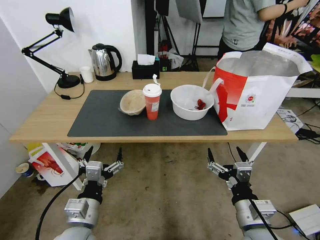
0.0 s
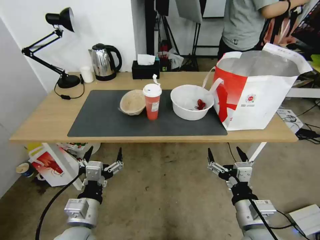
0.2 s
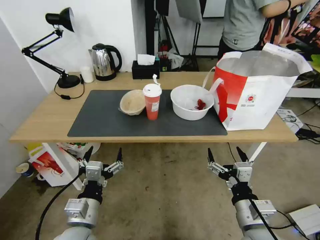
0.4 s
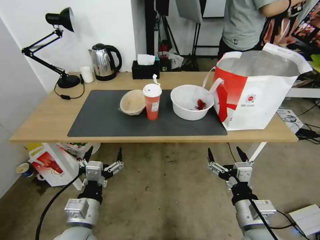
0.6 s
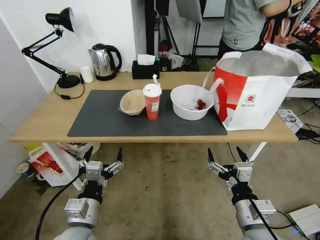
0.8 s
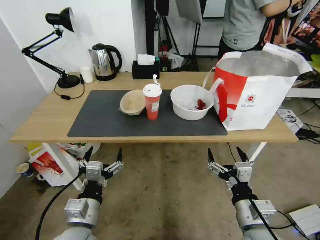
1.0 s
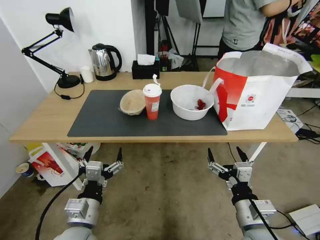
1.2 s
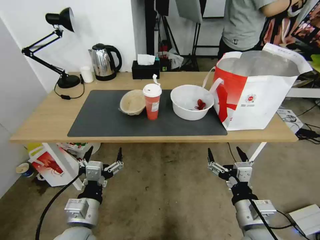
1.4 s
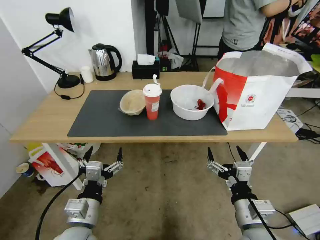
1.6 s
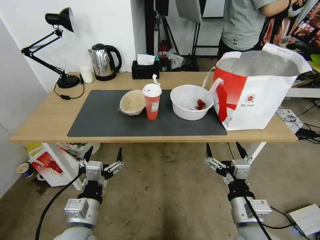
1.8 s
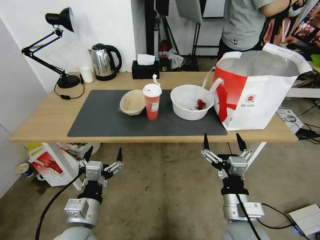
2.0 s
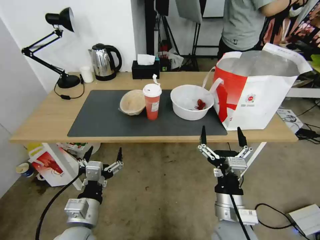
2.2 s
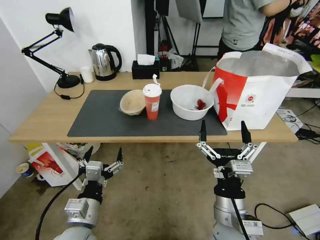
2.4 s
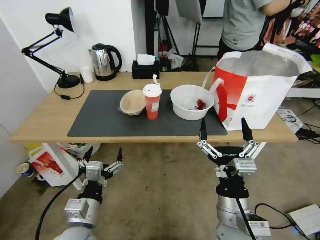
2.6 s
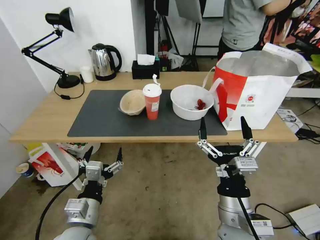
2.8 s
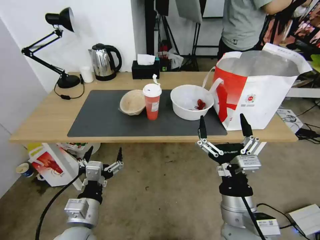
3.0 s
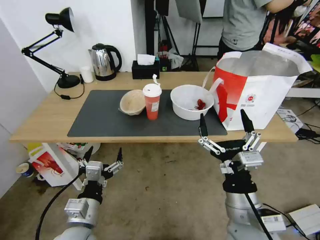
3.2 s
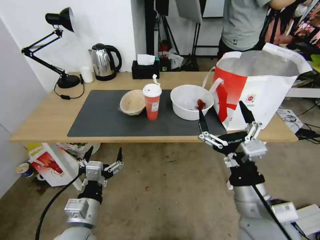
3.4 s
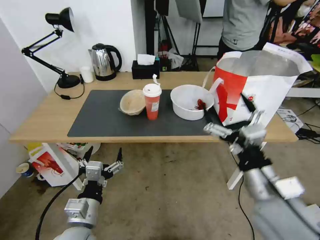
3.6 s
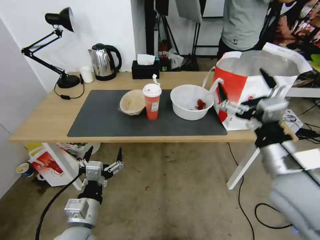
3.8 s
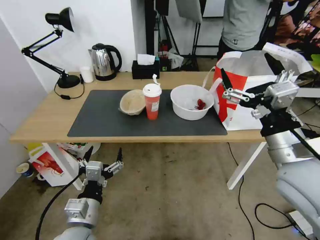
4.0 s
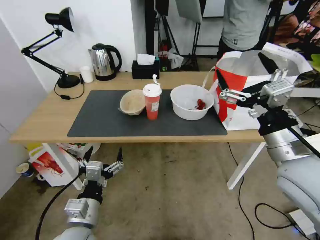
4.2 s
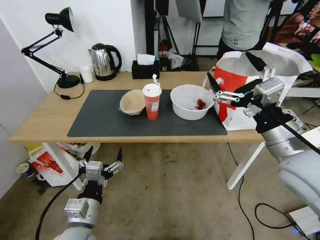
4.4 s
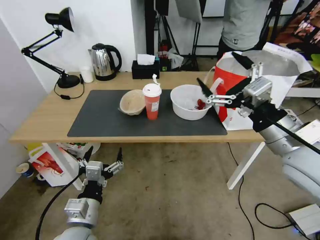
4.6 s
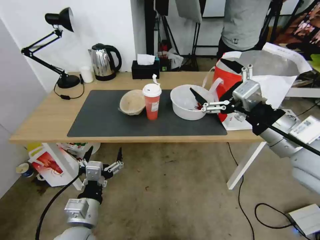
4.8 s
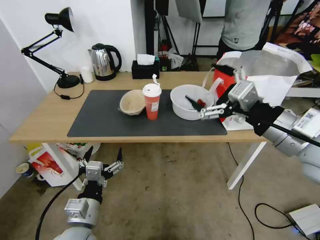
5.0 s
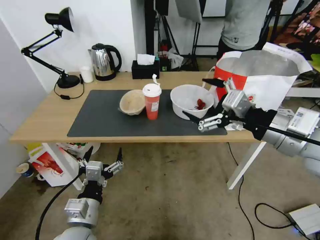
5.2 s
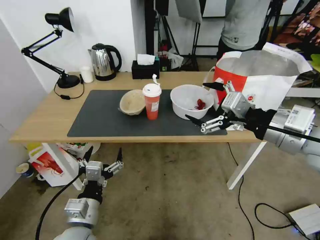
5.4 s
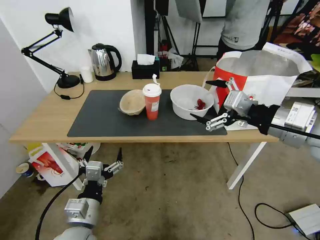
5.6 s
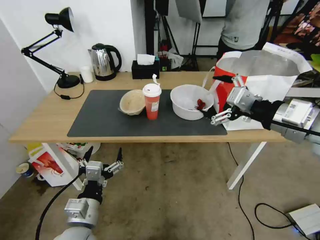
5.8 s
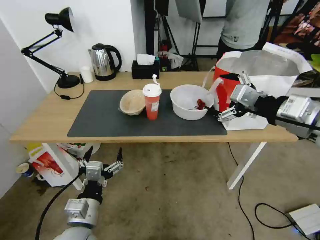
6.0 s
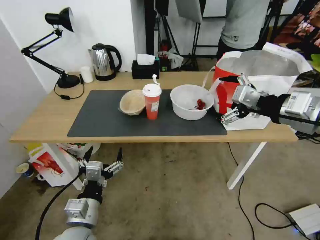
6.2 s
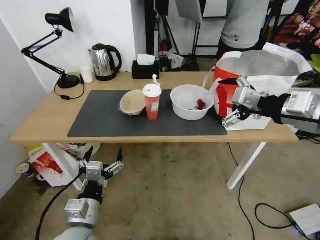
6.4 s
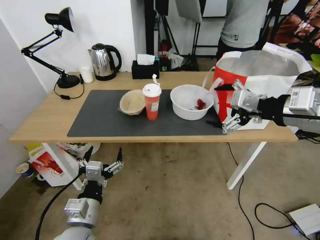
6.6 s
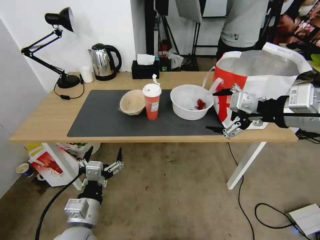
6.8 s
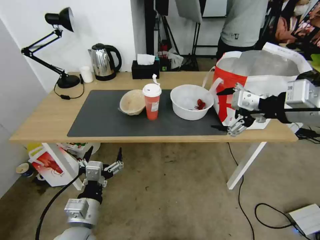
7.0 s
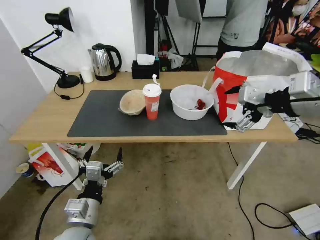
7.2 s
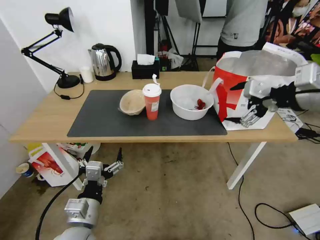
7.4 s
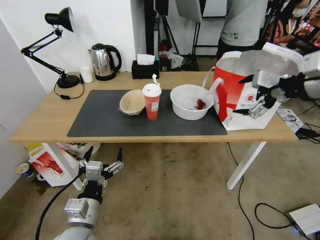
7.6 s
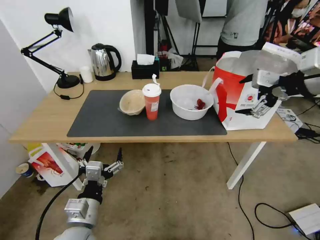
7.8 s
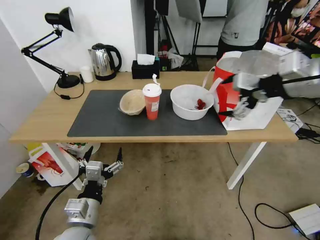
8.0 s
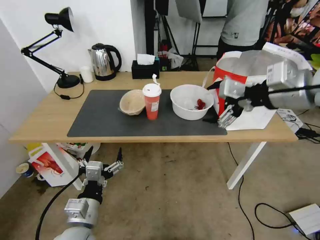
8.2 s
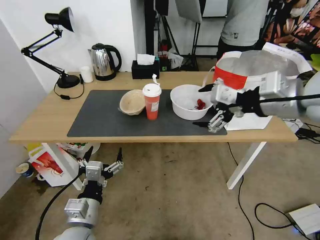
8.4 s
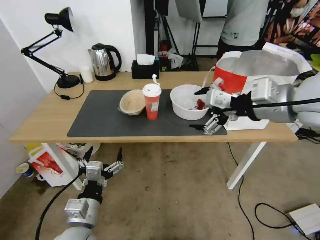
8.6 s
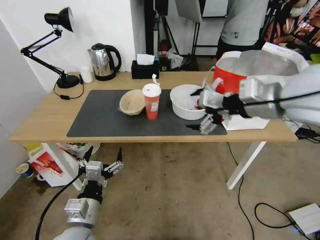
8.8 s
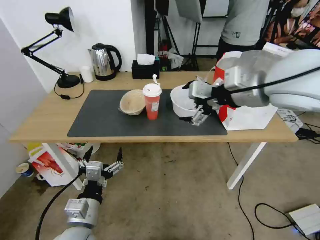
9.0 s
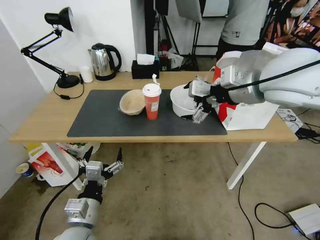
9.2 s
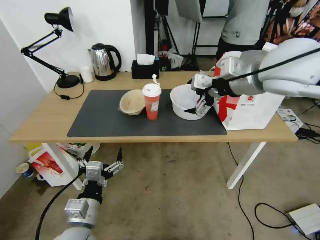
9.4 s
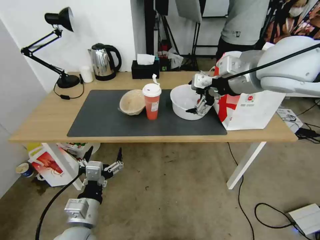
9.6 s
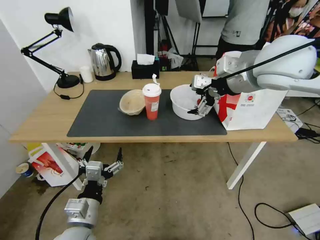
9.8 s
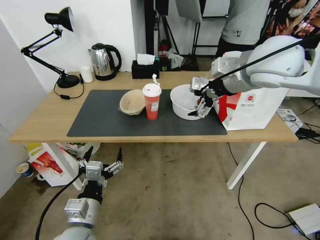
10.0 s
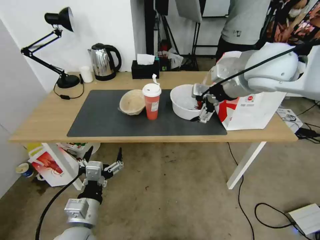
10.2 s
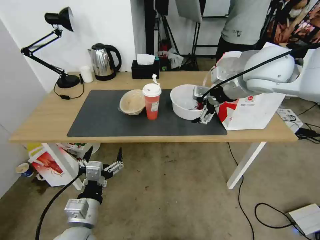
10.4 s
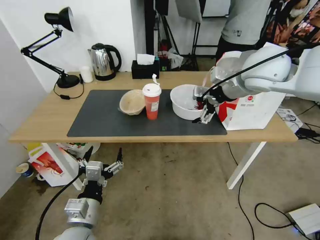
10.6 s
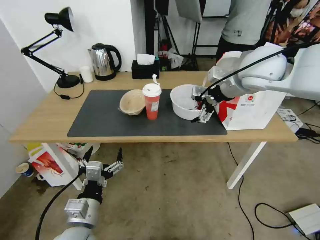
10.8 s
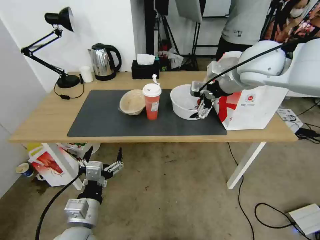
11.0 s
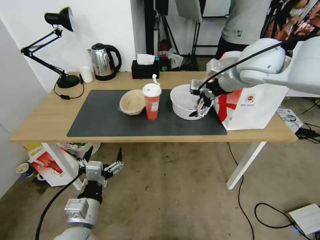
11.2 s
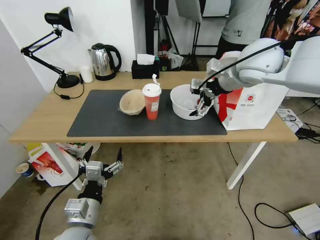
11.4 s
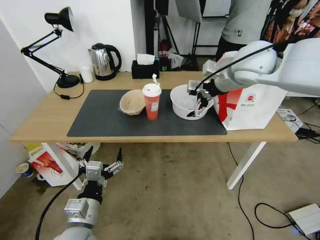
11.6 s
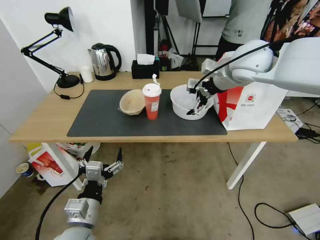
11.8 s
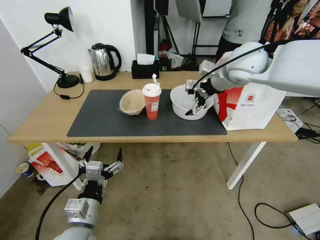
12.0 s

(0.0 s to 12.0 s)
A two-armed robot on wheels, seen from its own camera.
Task of the whole recording: Pick up the trash from the table and place it into the takeout bag.
1.6 s - 3.0 s: The right gripper shifts about 5 cm to the left.
3.0 s - 4.4 s: The right gripper heads upward, to the right and forward, covering about 20 cm.
4.4 s - 6.0 s: The right gripper moves upward, approximately 10 cm.
6.0 s - 7.6 s: The right gripper is displaced upward and forward by about 10 cm.
7.6 s - 9.0 s: The right gripper moves to the left, approximately 15 cm.
9.0 s - 10.4 s: The right gripper moves forward, about 10 cm.
10.4 s - 12.0 s: The right gripper goes some 5 cm forward.

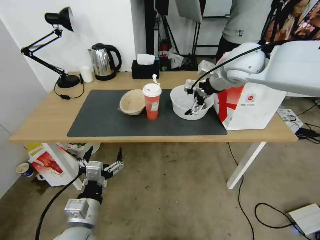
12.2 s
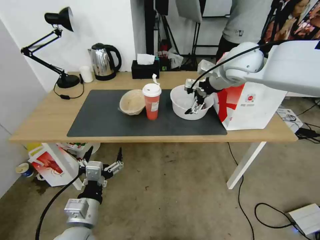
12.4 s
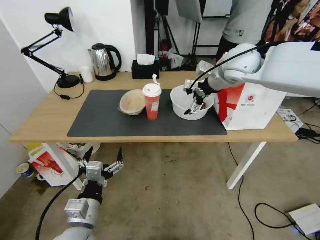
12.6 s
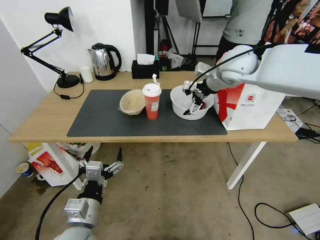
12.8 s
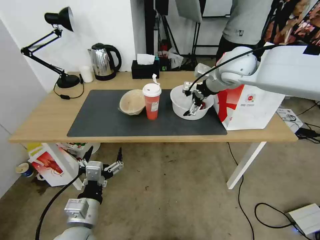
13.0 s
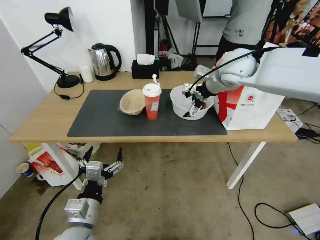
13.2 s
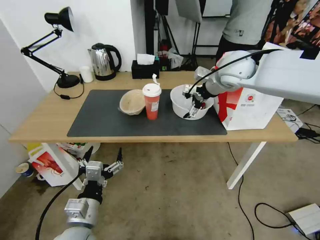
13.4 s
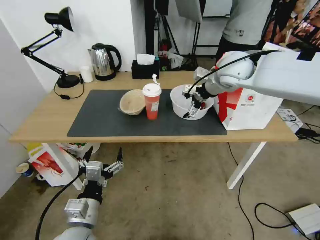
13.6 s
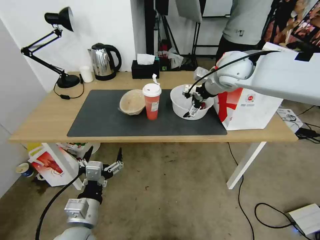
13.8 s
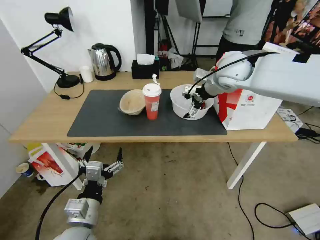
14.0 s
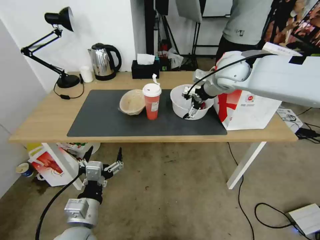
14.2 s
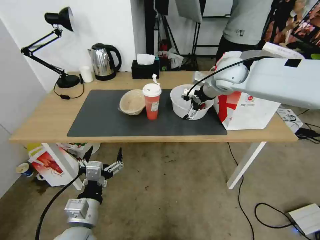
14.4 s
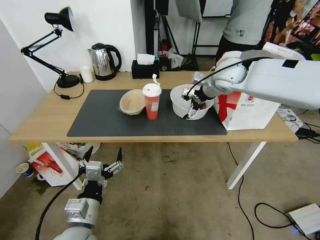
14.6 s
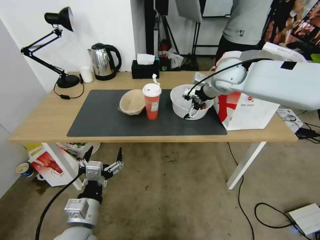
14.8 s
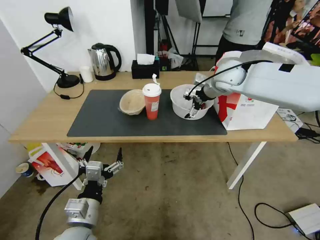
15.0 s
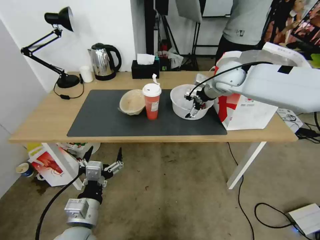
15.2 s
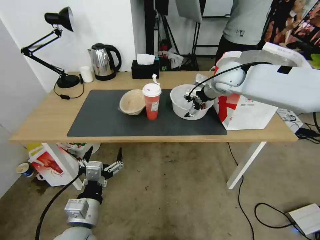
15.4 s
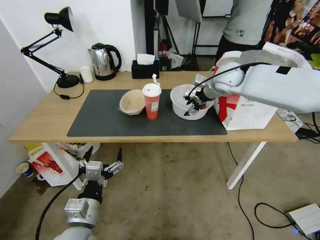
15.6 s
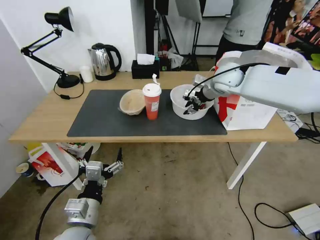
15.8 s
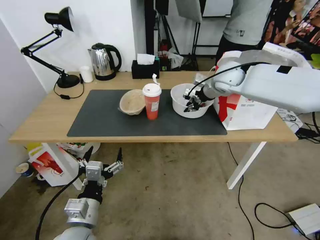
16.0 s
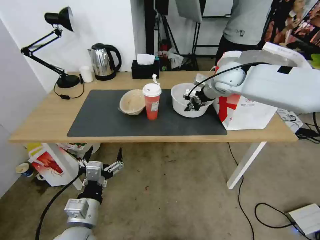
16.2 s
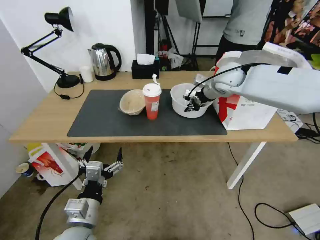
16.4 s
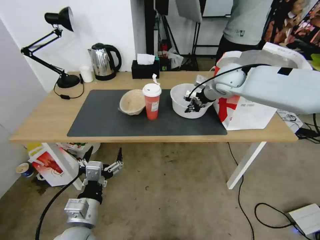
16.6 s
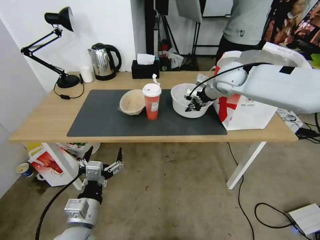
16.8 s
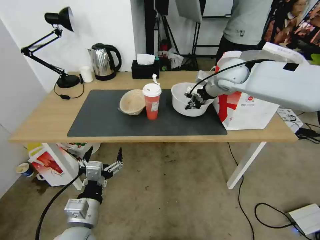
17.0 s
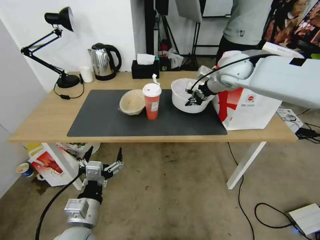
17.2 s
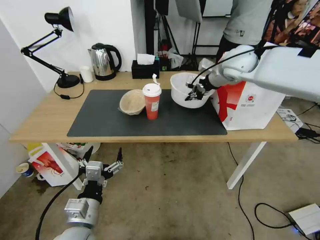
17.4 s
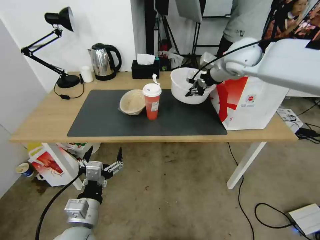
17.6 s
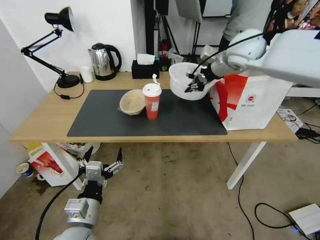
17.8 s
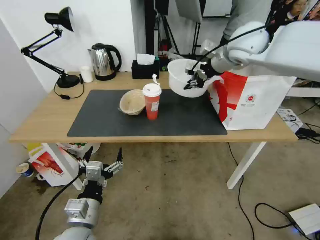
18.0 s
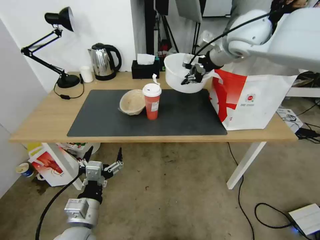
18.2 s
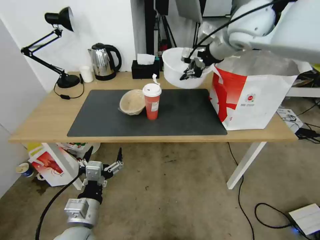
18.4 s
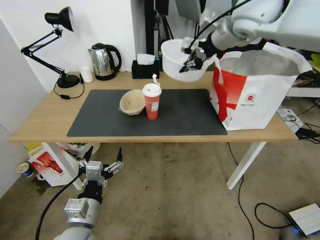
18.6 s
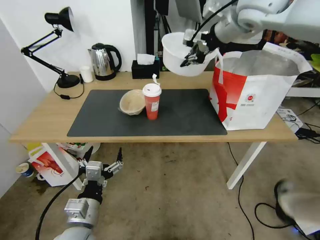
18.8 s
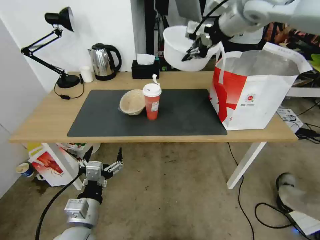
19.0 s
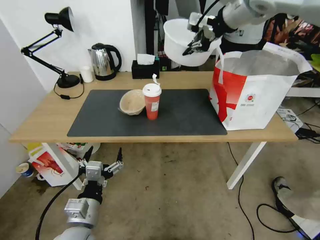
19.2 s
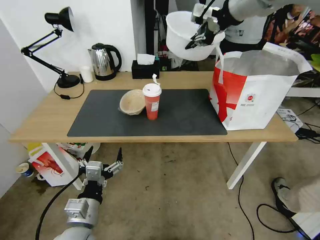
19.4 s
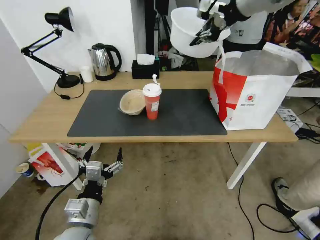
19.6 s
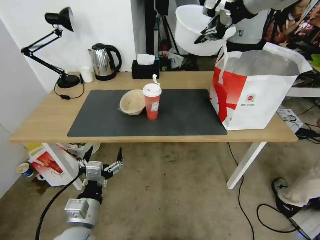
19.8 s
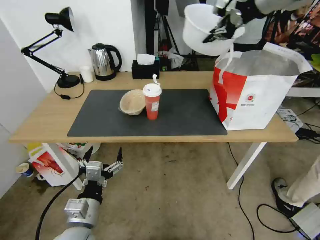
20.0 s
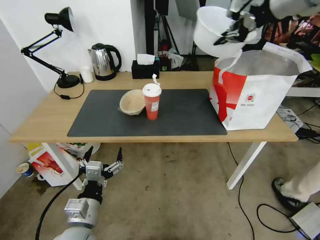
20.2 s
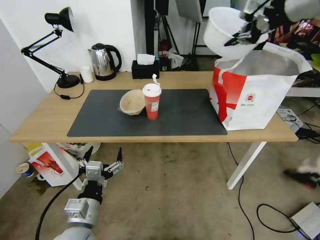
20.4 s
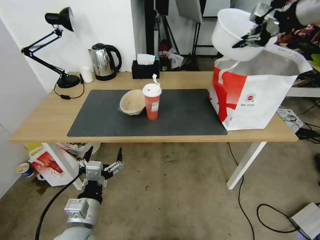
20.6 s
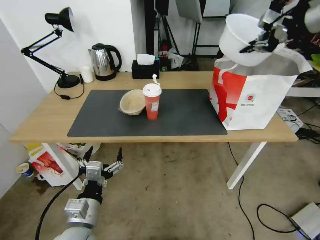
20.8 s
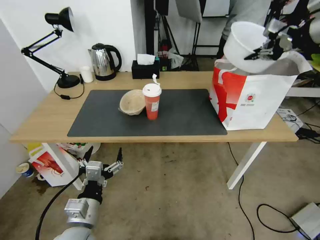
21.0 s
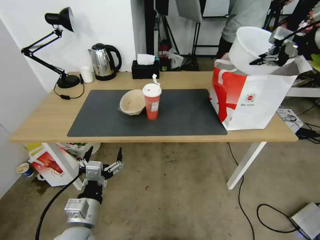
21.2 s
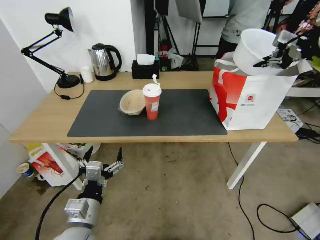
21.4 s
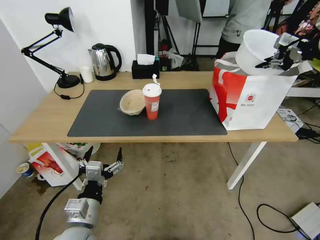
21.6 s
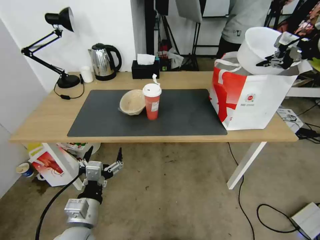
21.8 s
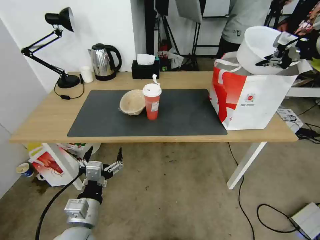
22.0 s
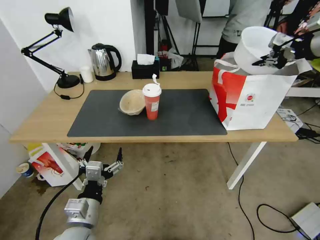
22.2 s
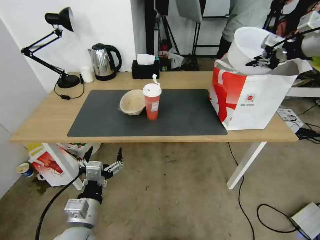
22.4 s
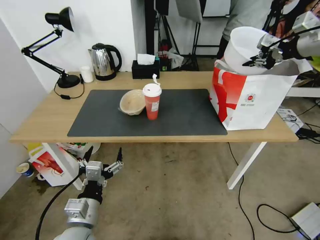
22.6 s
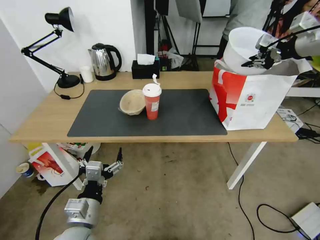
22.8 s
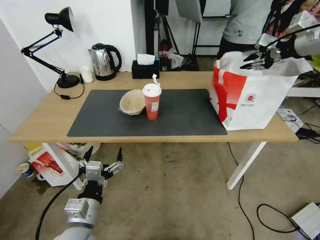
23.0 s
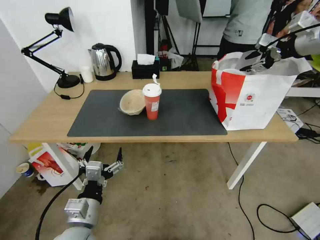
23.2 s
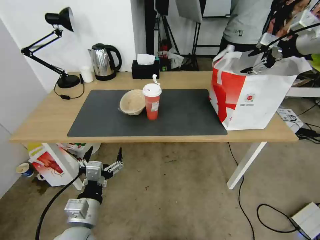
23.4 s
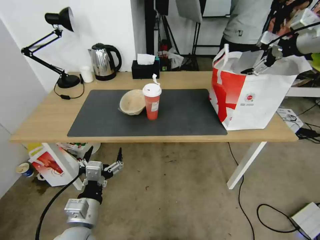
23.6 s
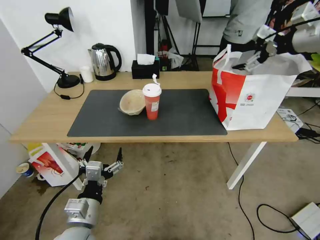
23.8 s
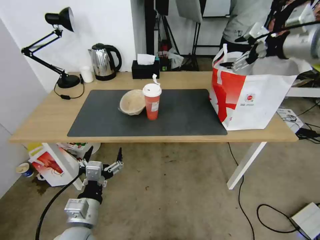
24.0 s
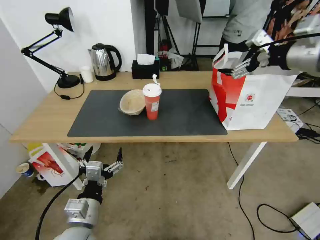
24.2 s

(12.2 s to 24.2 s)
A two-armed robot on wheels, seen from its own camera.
Task of the whole recording: Pick up the trash from the table and place it into the takeout bag.
12.2 s - 13.8 s: The grippers stay close to where they were, moving slightly.
13.8 s - 15.2 s: The right gripper shifts by some 5 cm.
15.2 s - 16.6 s: The right gripper closes.
16.6 s - 18.2 s: The right gripper shifts about 15 cm upward.
18.2 s - 19.8 s: The right gripper goes approximately 15 cm upward.
19.8 s - 21.2 s: The right gripper is displaced to the right and downward by some 20 cm.
21.2 s - 22.6 s: There are only small adjustments of the grippers.
22.6 s - 24.2 s: The right gripper is displaced backward and to the left by about 10 cm, and opens.
